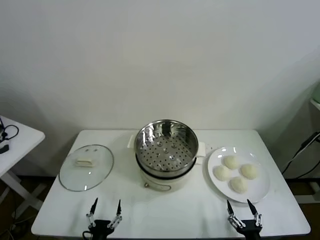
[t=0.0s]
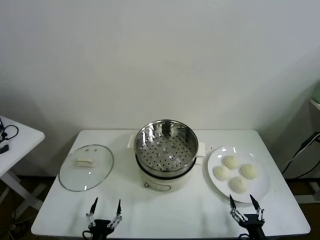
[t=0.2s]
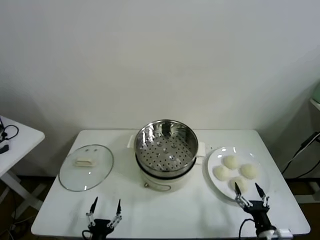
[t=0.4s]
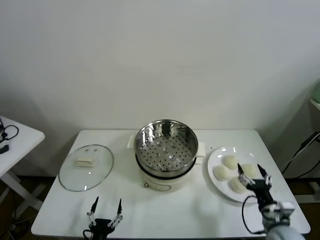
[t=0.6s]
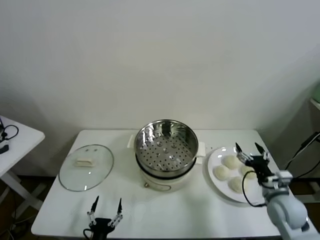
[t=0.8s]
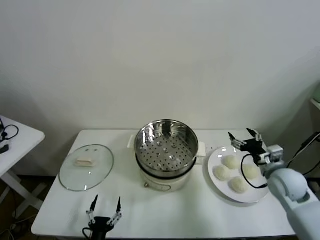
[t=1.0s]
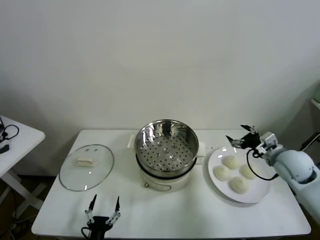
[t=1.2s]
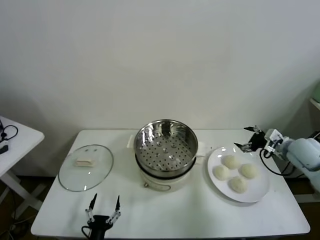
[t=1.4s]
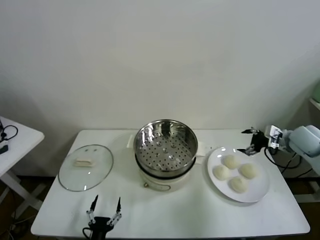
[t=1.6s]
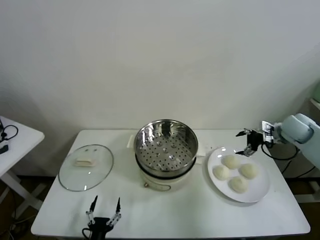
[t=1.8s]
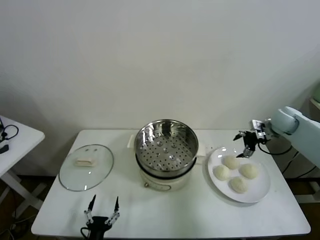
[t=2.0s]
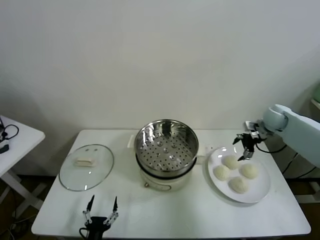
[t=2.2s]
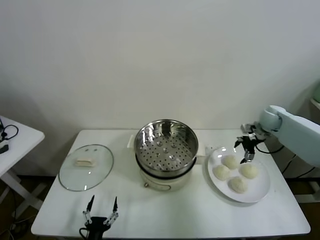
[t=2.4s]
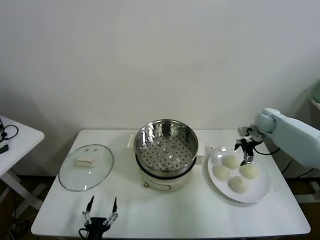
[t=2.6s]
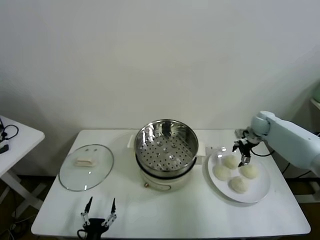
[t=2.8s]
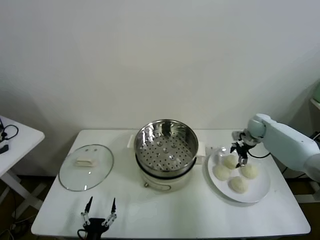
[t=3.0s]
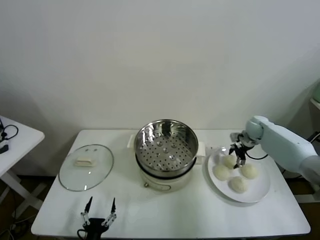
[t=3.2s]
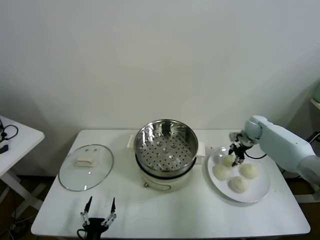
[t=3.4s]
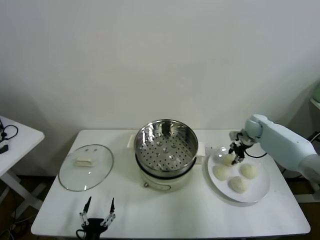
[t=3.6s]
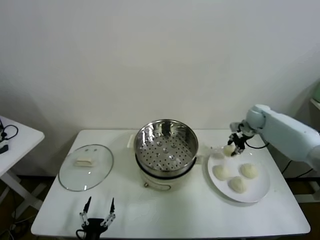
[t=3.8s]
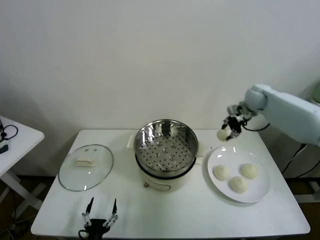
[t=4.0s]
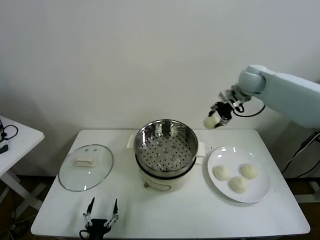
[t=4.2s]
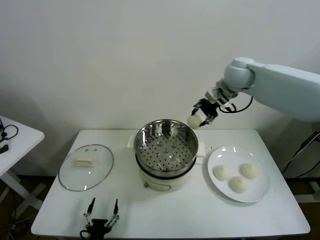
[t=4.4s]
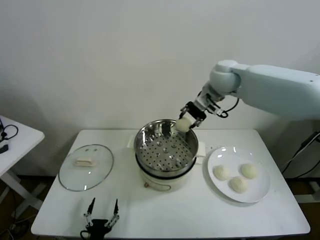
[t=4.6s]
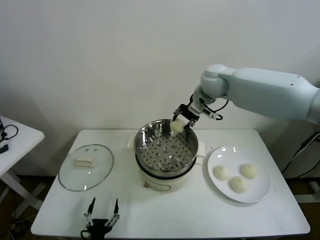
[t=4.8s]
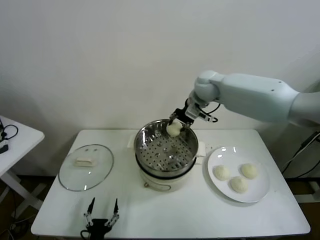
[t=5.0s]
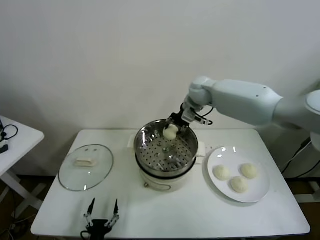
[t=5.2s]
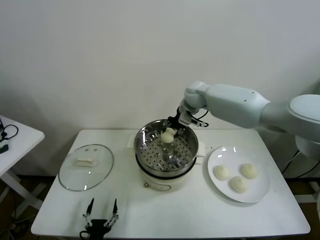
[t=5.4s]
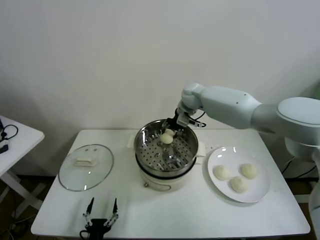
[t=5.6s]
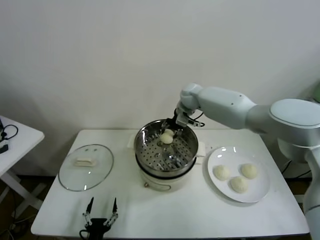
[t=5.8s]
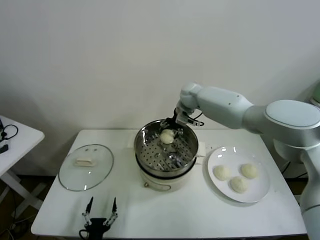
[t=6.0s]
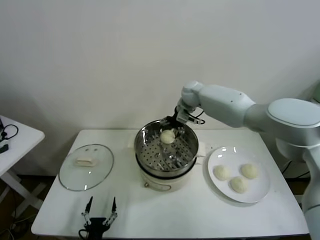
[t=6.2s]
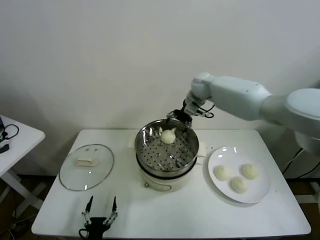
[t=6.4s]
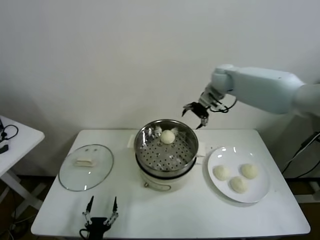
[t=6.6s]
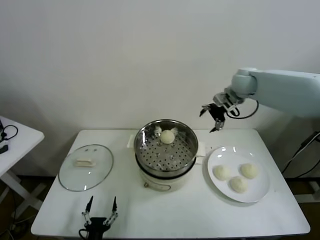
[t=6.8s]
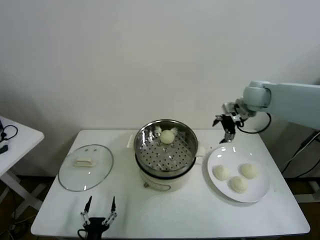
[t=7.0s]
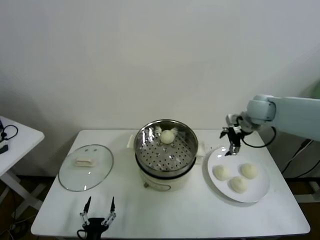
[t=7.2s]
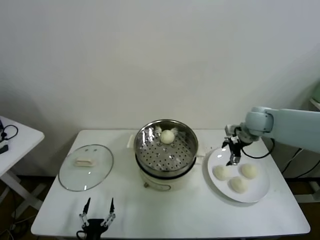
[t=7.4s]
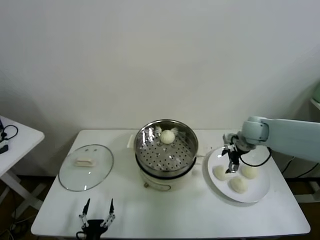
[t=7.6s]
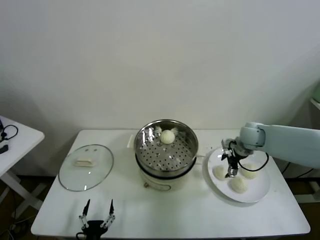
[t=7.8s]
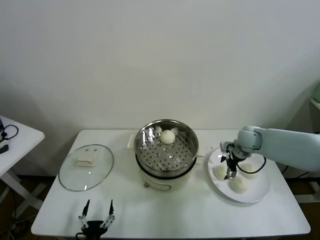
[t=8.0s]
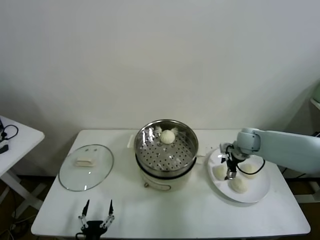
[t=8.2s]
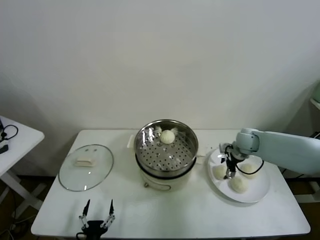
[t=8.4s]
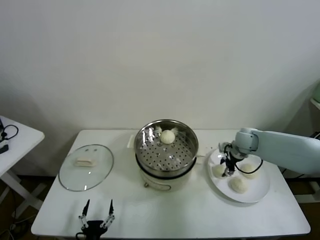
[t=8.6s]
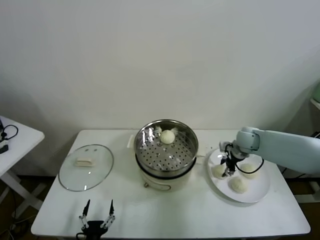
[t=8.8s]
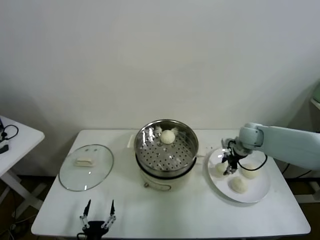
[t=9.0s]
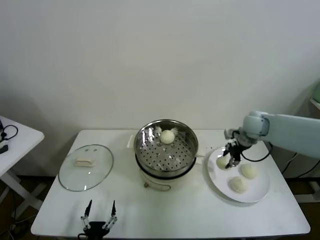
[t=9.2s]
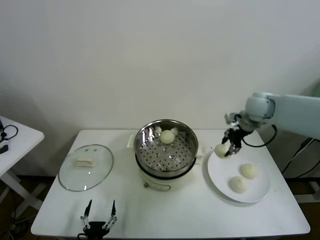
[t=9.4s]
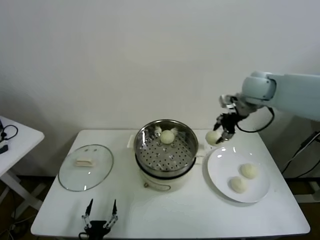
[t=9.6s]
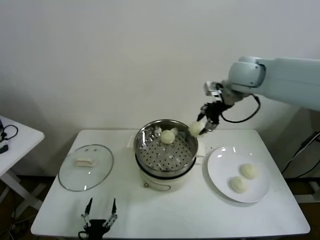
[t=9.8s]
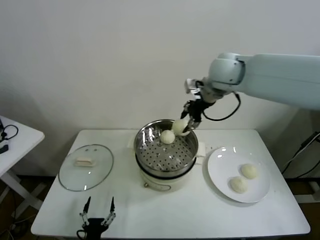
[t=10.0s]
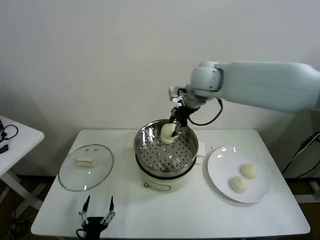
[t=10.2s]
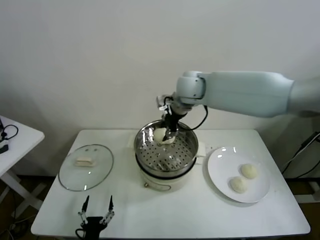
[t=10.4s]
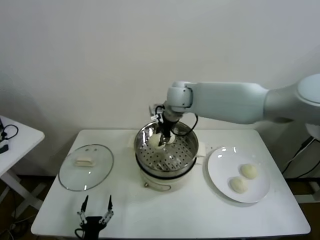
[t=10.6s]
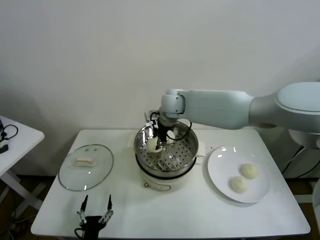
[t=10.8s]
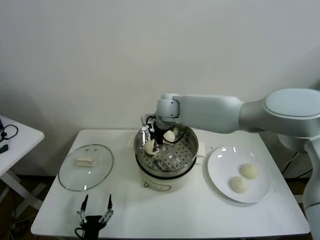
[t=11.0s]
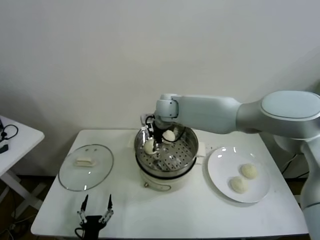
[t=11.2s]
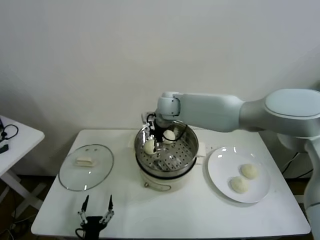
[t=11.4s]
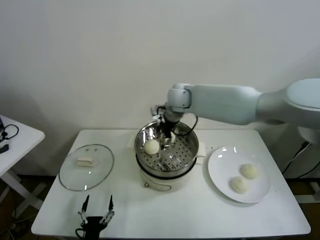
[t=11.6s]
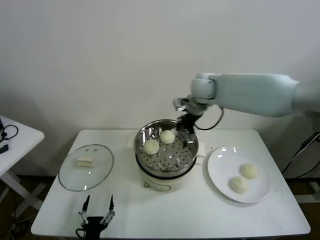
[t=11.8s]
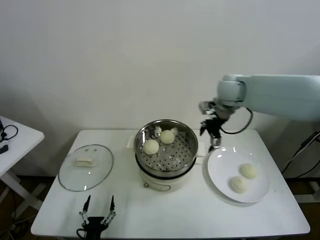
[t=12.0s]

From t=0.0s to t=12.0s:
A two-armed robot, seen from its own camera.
Task of the whole recording: take steamed baozi put them in steamer.
Step, from t=0.0s to t=3.2s: Grasp the baozi in the plate with right gripper.
Step, from t=3.4s to t=6.0s: Place the baozi on the steamer with right gripper.
Step, from t=6.4s to t=8.4s: Grasp the baozi in the plate with right gripper.
Step, from t=8.6s to t=11.2s: Place the baozi on the steamer with right gripper.
From t=1.6s to t=3.0s: The right gripper is displaced forward, downward and to the left by some 15 cm.
From t=3.0s to t=4.4s: The right gripper shifts about 30 cm upward and to the left, and closes.
From t=4.4s to t=6.0s: The right gripper shifts about 20 cm downward, to the left and forward, and opens up.
From t=6.0s to t=7.6s: The right gripper moves to the right and backward, roughly 25 cm.
From t=7.6s to t=9.0s: The right gripper closes up.
From t=9.0s to t=10.4s: The right gripper goes roughly 30 cm to the left and upward.
From t=10.4s to t=12.0s: The right gripper is displaced to the right by some 15 cm, and opens.

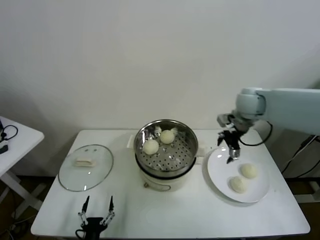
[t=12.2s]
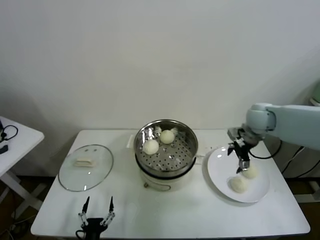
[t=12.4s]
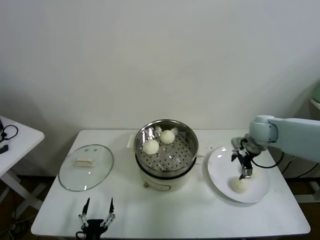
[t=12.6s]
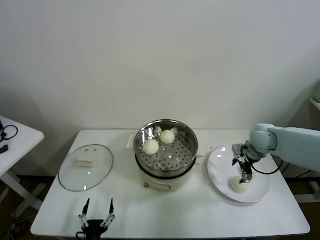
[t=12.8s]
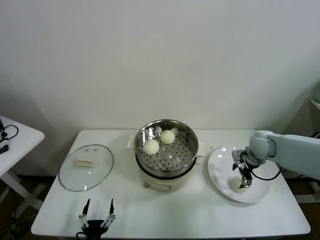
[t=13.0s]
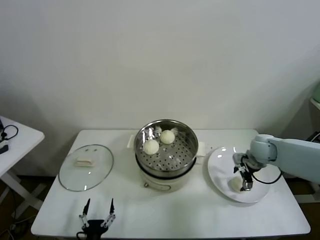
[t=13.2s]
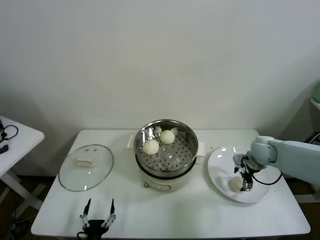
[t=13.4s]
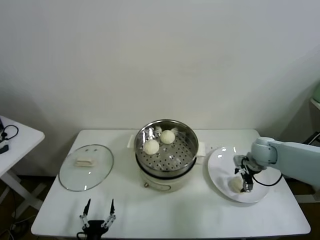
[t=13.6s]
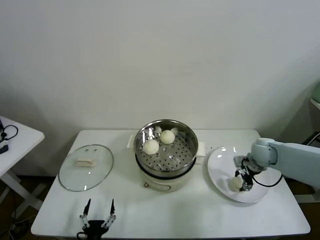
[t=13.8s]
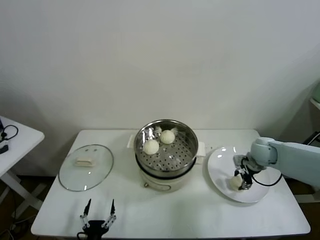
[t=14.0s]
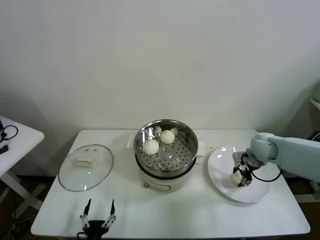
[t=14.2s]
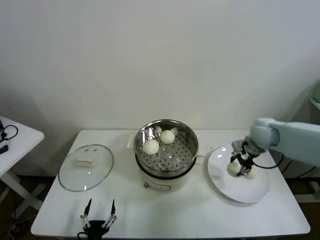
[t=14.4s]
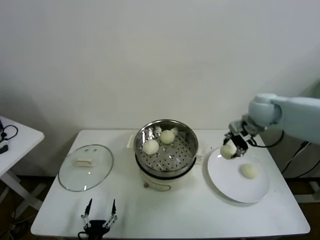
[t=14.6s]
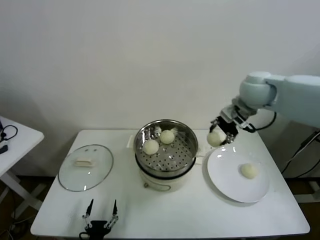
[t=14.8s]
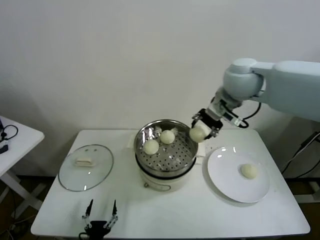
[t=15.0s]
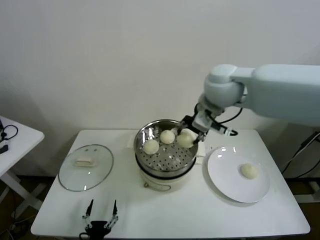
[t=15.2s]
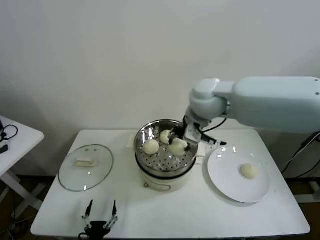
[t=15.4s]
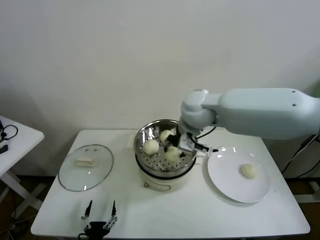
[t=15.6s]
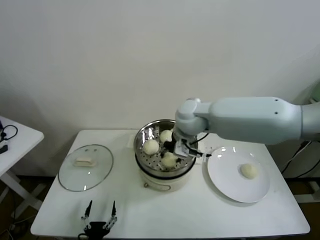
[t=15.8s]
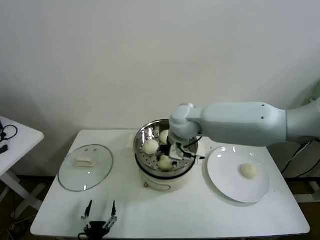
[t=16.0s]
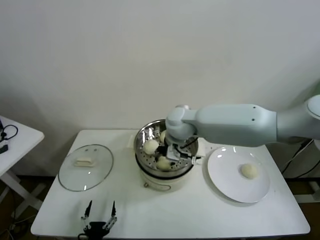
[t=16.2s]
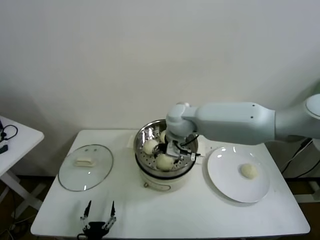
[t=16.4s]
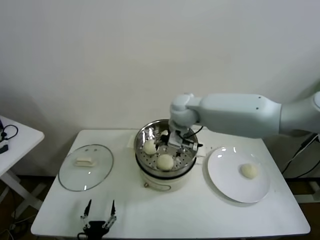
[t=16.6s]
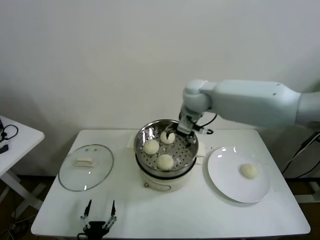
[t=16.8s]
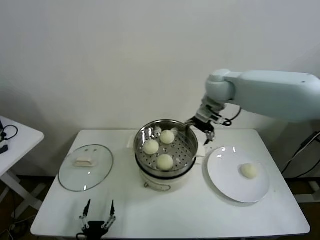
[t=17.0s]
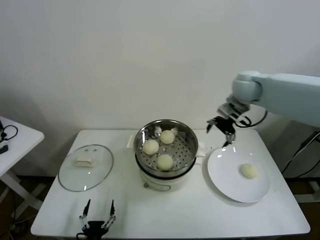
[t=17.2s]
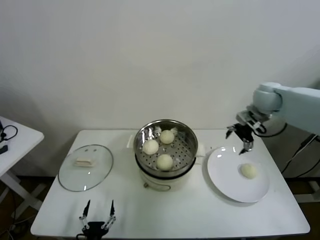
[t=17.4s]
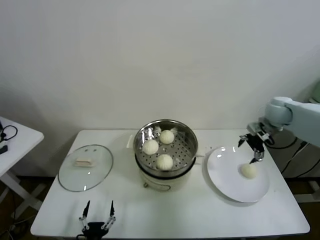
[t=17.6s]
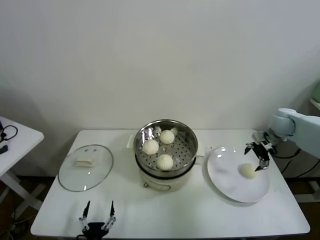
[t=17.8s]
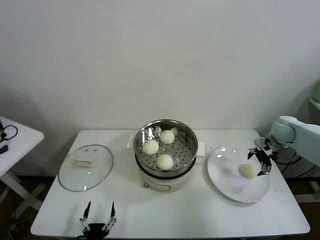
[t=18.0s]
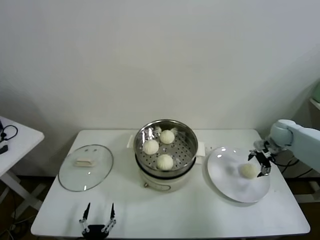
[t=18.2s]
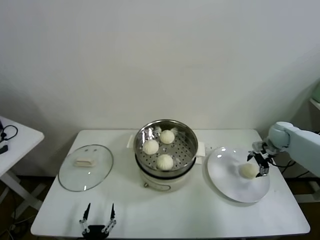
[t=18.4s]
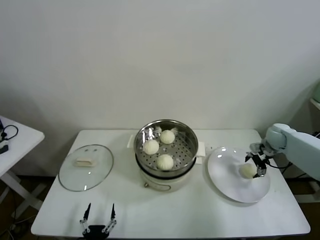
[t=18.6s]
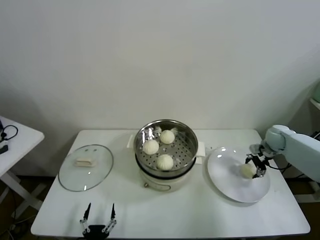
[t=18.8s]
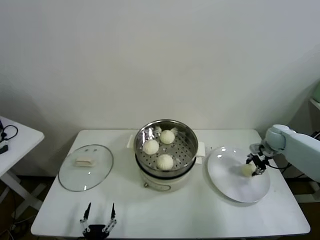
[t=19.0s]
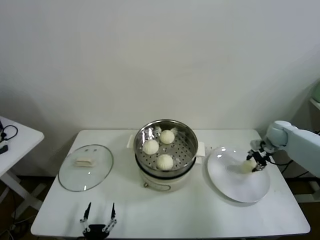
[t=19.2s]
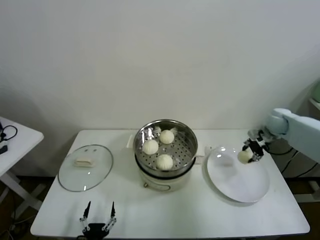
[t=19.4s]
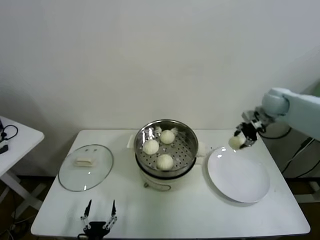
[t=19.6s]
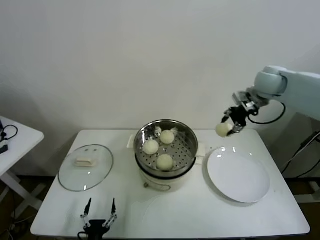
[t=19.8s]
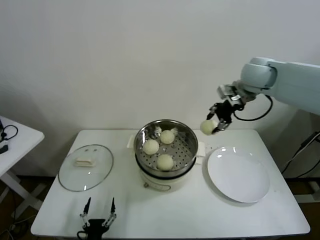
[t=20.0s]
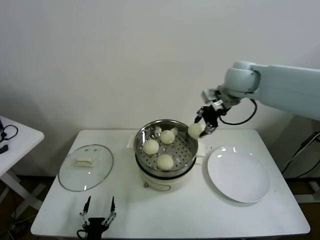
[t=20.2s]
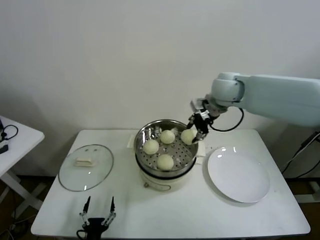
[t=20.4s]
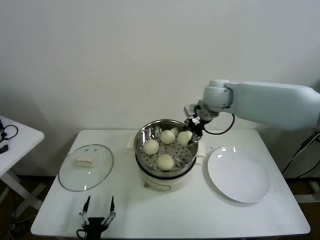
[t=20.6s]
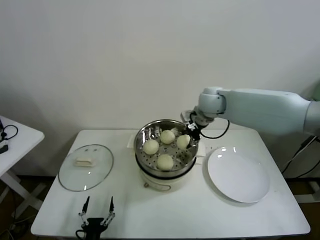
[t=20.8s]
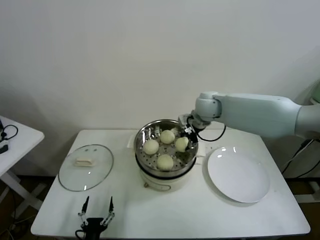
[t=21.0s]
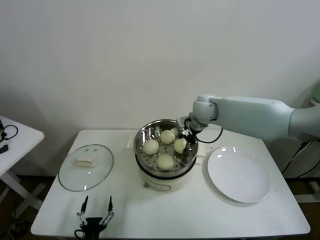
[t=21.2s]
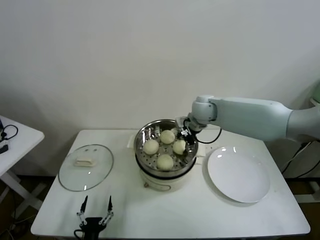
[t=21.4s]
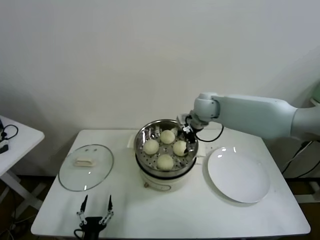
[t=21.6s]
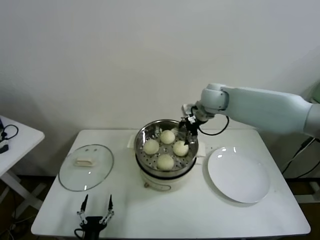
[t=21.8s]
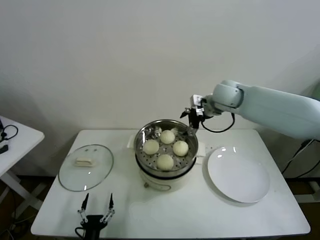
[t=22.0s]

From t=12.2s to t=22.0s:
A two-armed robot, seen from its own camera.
Task of the whole recording: take steamed baozi put them in steamer.
Step, from t=12.2s to t=13.6s: Grasp the baozi in the plate with right gripper.
Step, from t=14.0s to t=16.4s: Place the baozi on the steamer with right gripper.
Step, from t=16.6s to t=18.6s: Grasp the baozi in the plate with right gripper.
Step, from t=19.0s to t=21.6s: Place the baozi on the steamer with right gripper.
From t=12.2s to t=13.6s: The right gripper travels downward and to the right by approximately 20 cm.
From t=13.6s to t=15.0s: The right gripper heads upward and to the left, covering approximately 35 cm, and closes up.
From t=15.0s to t=16.4s: The right gripper goes approximately 20 cm downward and to the left, and opens up.
From t=16.4s to t=17.8s: The right gripper goes some 40 cm to the right.
From t=17.8s to t=19.2s: The right gripper moves downward, approximately 10 cm, and closes its fingers.
From t=19.2s to t=20.6s: The right gripper shifts roughly 35 cm to the left and upward.
From t=20.6s to t=22.0s: The right gripper opens up.
